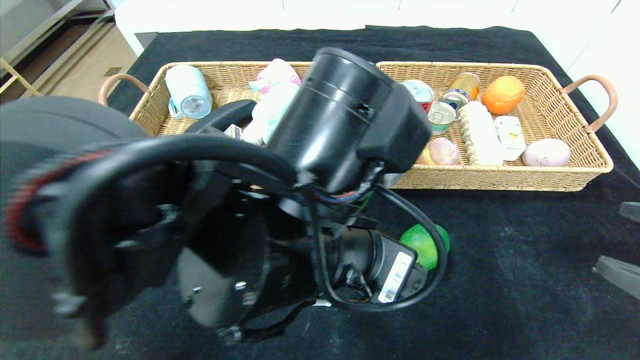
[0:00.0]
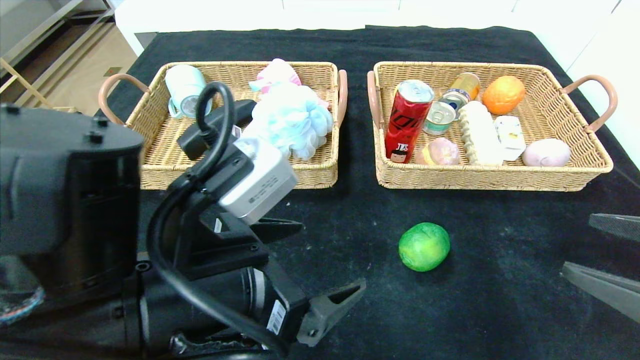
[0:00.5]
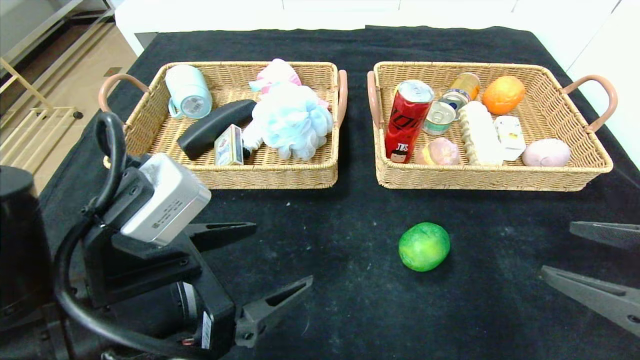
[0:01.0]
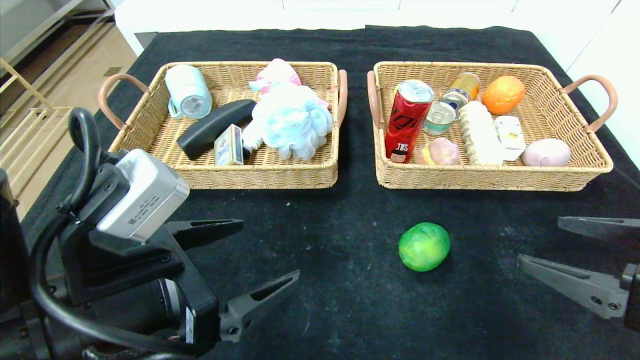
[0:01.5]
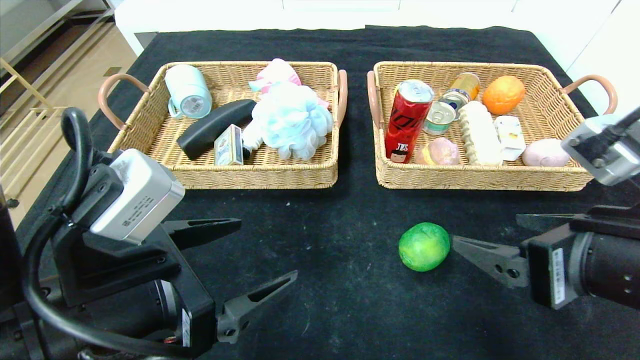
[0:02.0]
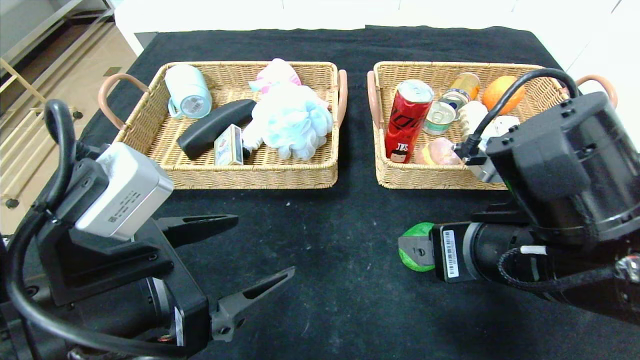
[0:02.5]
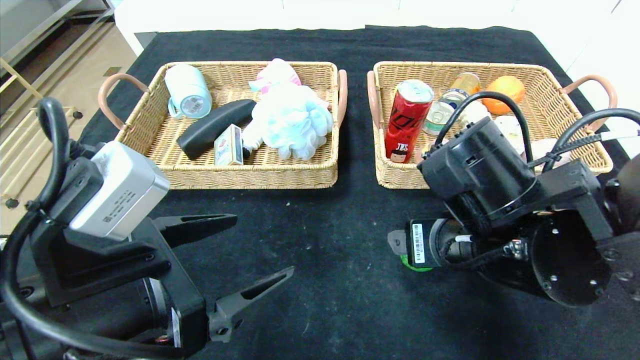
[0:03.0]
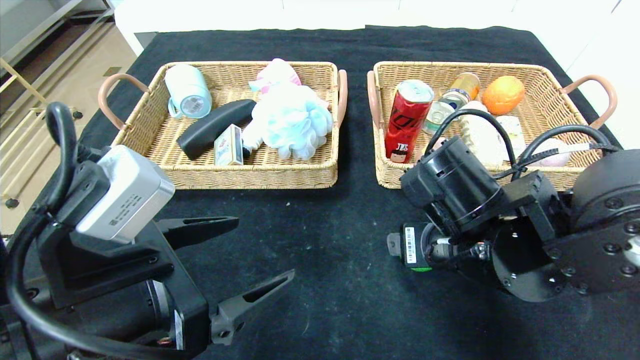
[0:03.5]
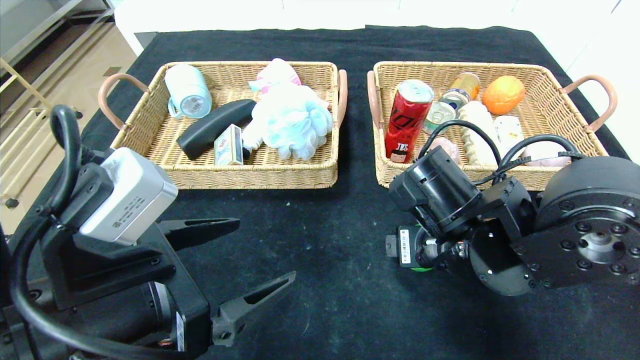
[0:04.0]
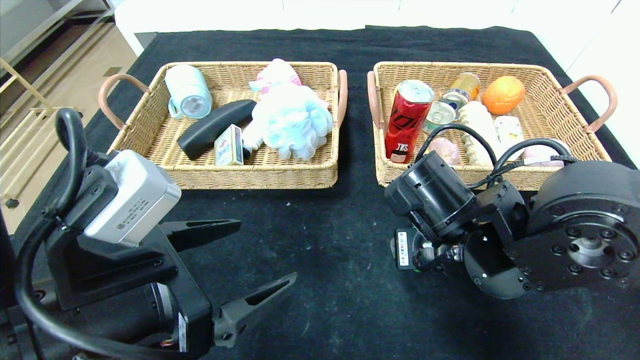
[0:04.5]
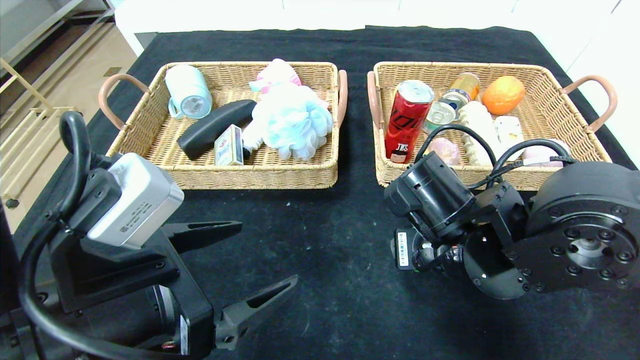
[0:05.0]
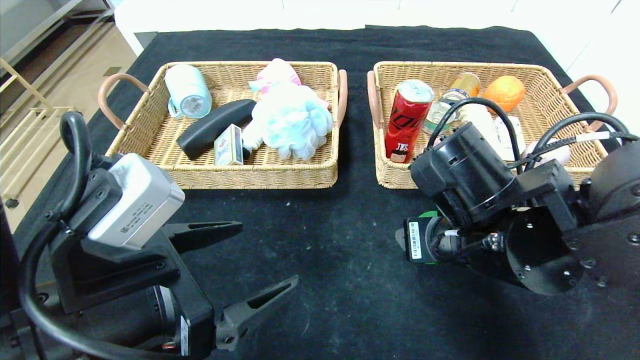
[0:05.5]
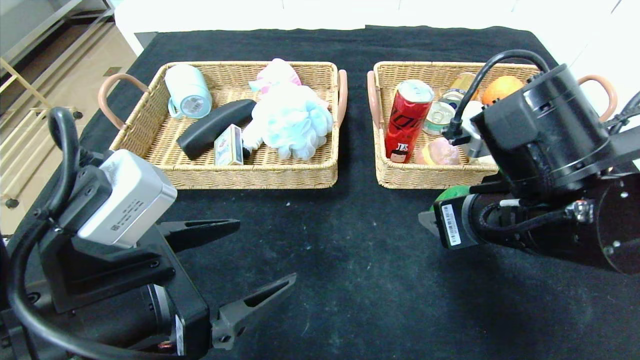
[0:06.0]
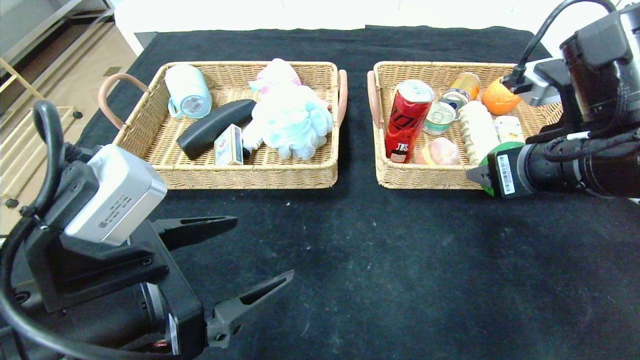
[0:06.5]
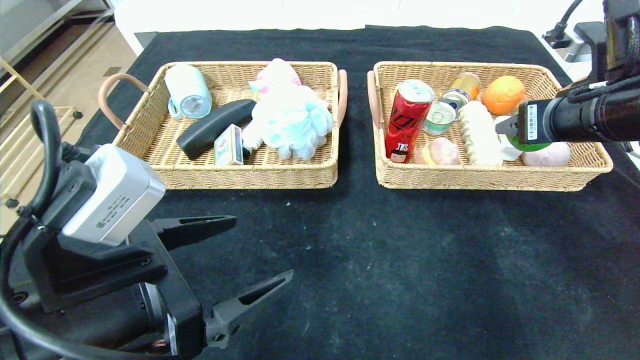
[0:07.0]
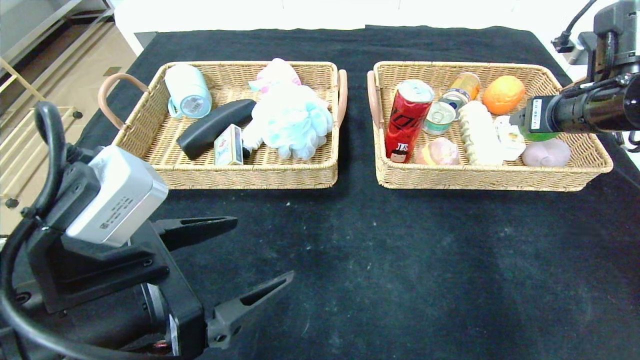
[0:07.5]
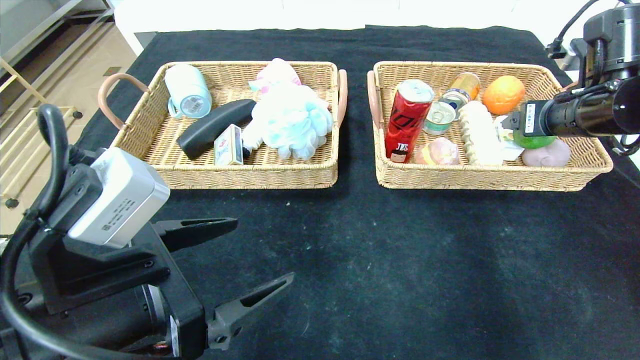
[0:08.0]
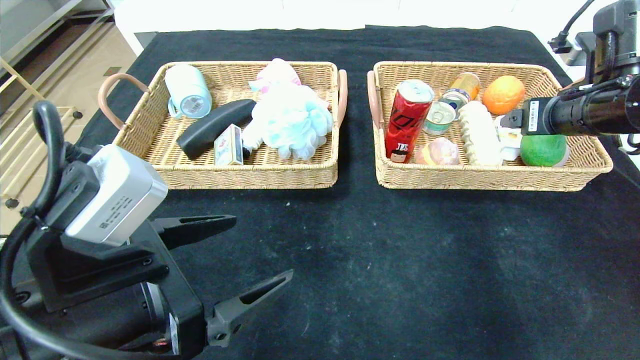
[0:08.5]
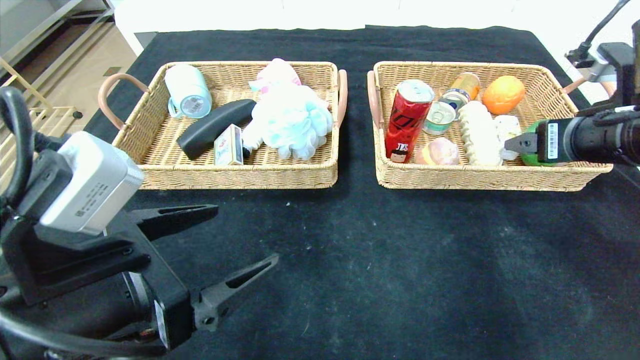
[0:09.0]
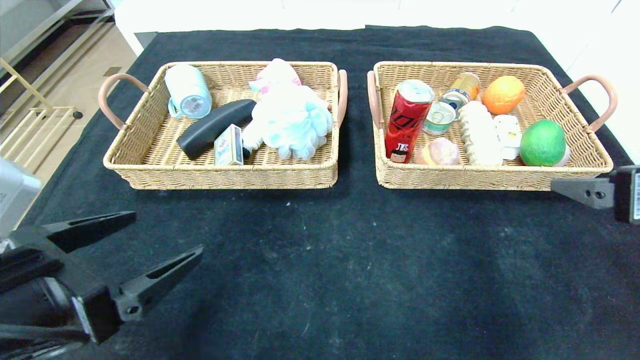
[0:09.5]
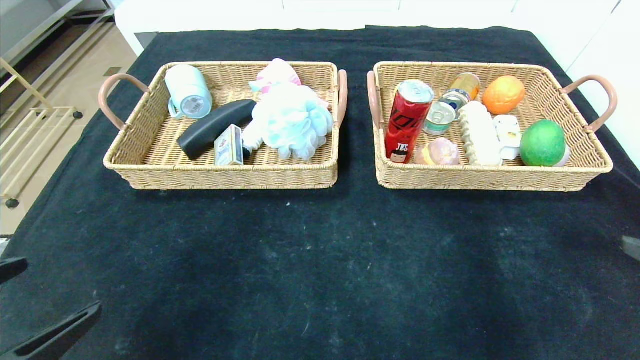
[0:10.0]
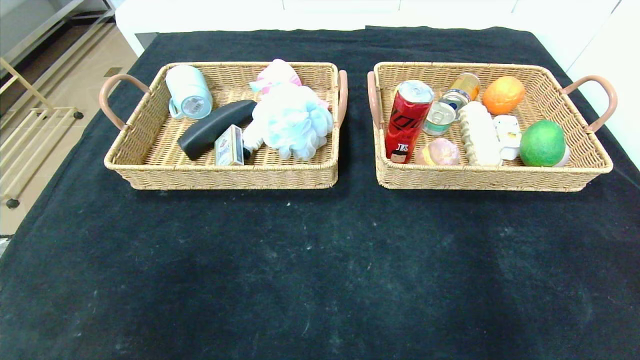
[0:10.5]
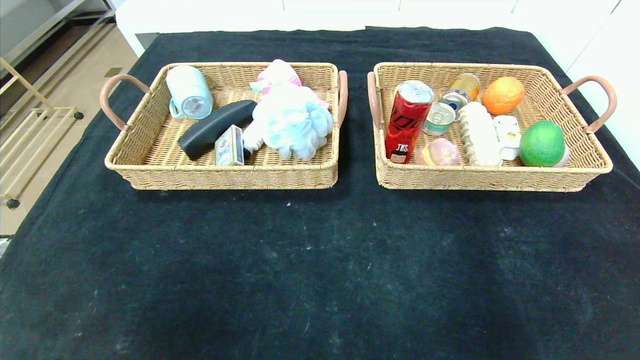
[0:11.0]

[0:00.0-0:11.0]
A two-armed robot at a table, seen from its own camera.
Step, 0:00.0 to 0:08.0: Grasp the green lemon and put it in the right basket.
0:00.0 to 0:02.0: The two grippers go about 15 cm to the left.
0:02.0 to 0:03.5: The right gripper heads to the left and forward, covering about 10 cm.
0:03.5 to 0:05.5: The grippers stay close to where they were, moving slightly.
0:05.5 to 0:07.5: The right gripper is displaced to the right, forward and upward by some 25 cm.
0:07.5 to 0:09.0: The right gripper is displaced backward by approximately 10 cm.
0:09.0 to 0:11.0: The right gripper heads backward, covering approximately 35 cm. The left gripper heads backward and to the left, covering some 25 cm.

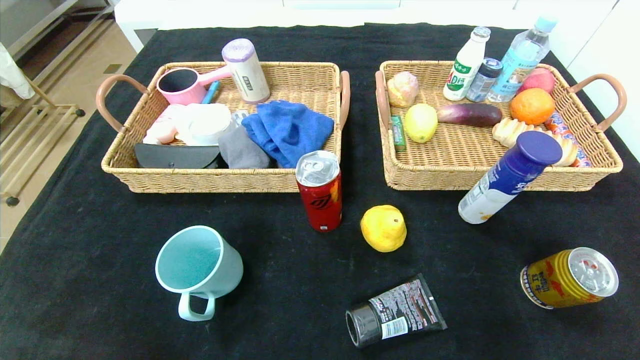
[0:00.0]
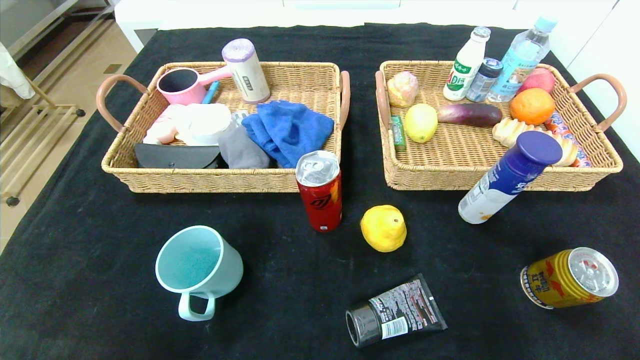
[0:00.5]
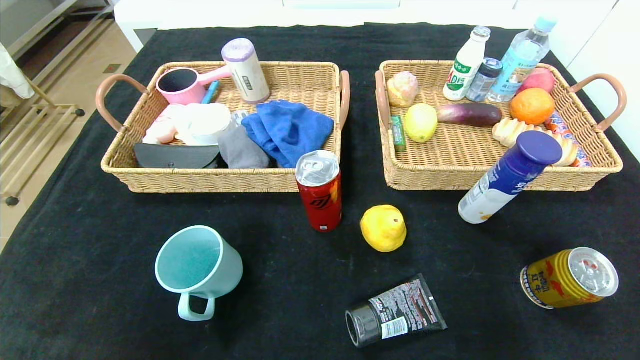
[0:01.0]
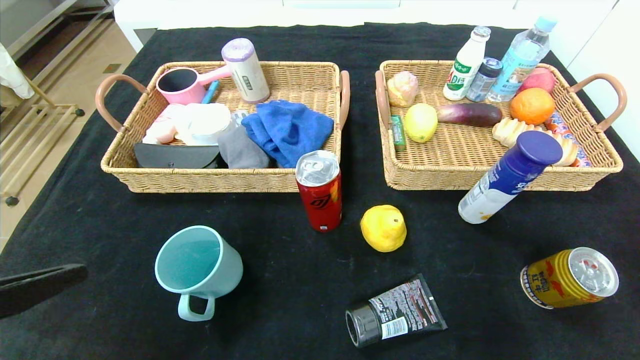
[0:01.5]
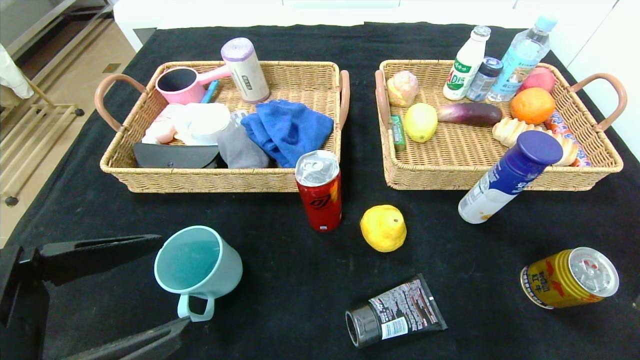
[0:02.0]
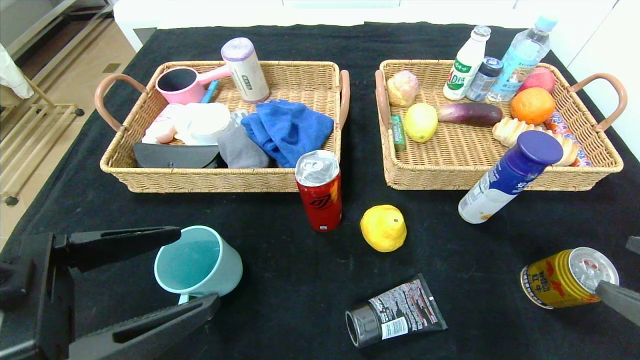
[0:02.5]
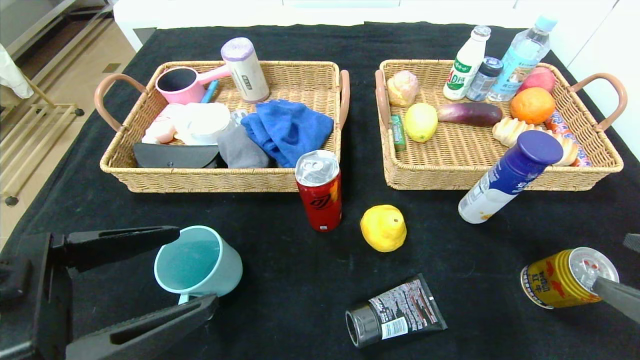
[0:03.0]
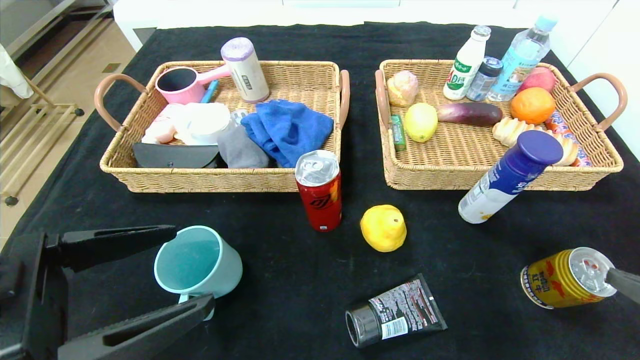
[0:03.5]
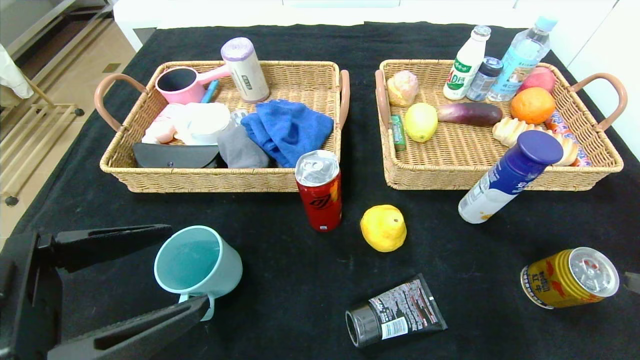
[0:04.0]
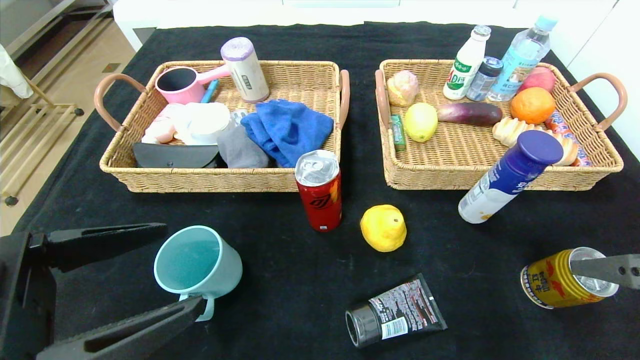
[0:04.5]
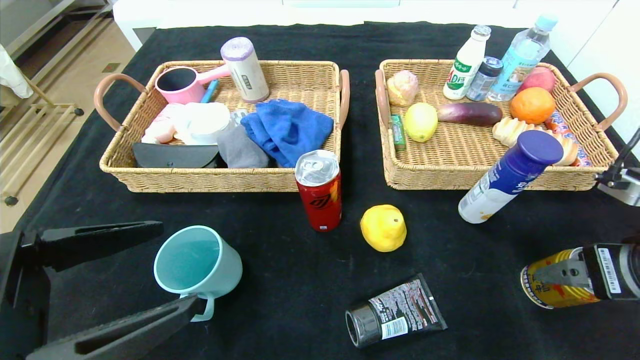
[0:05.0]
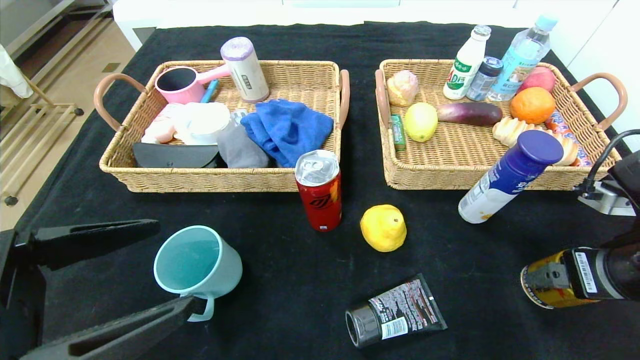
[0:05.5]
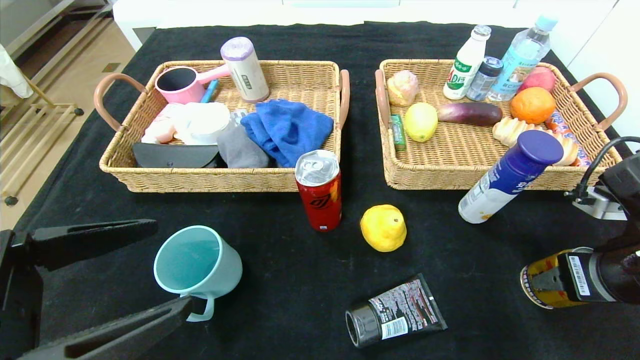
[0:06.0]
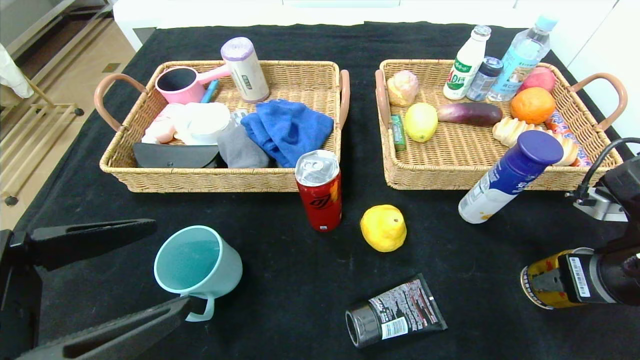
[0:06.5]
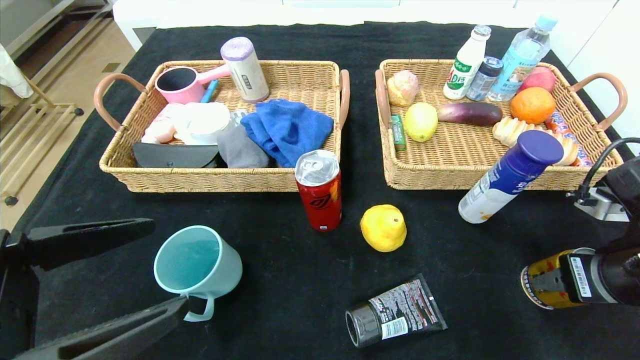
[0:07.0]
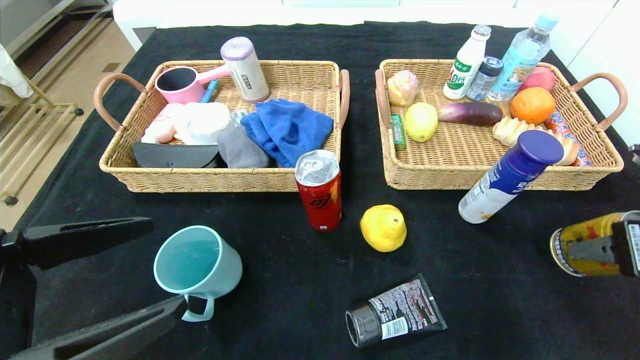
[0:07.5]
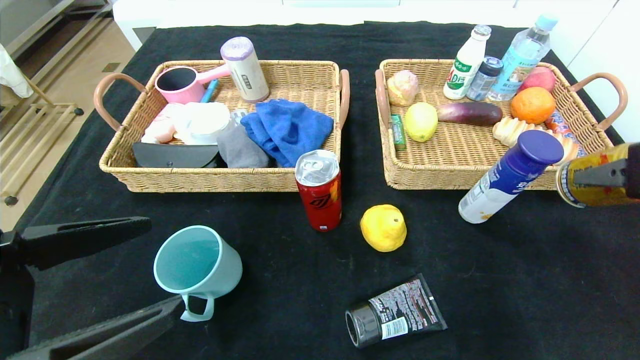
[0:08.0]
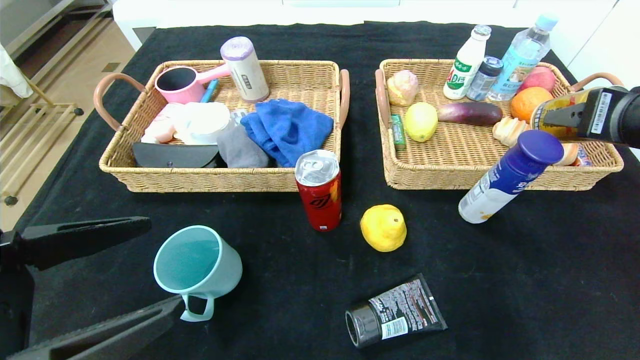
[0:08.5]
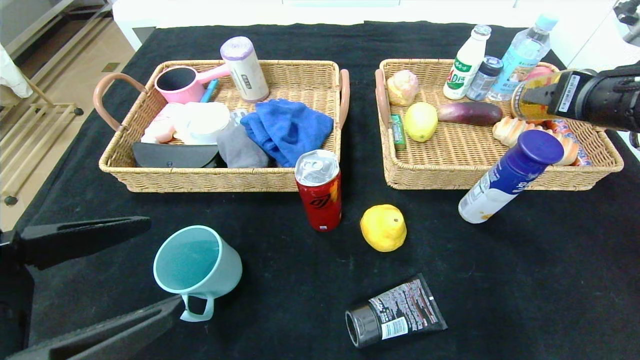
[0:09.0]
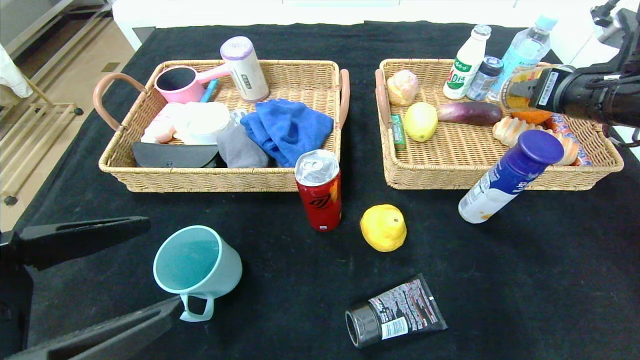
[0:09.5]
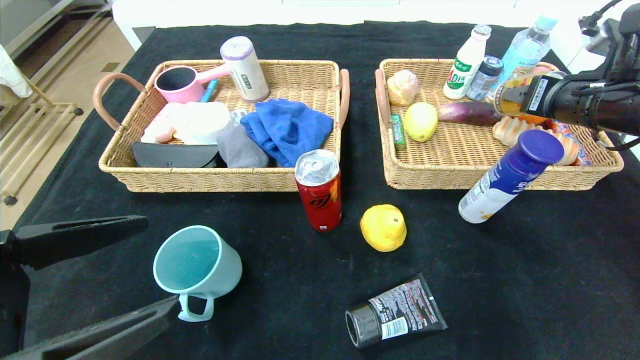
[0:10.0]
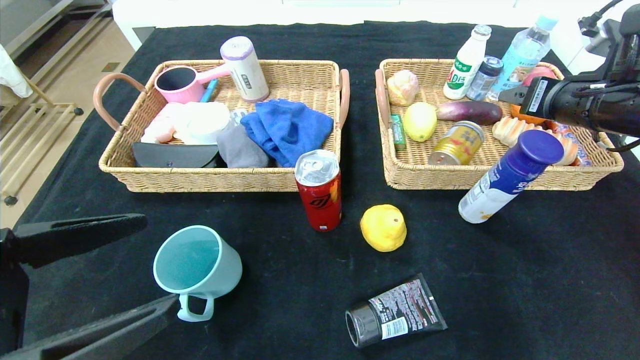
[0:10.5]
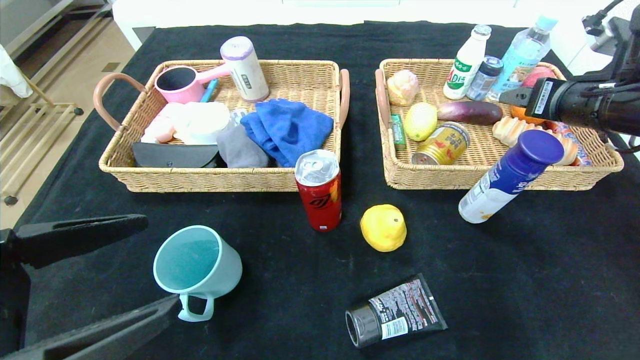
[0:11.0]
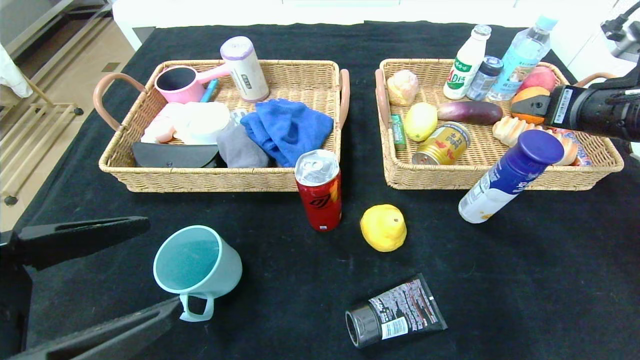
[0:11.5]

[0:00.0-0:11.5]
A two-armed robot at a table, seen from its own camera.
Step, 0:00.0 to 0:11.0: Grasp the Red Bull and put it in the right basket.
0:00.0 to 0:02.0: The two grippers go some 20 cm upward and forward.
0:04.0 to 0:06.0: The right gripper moves forward and downward, about 15 cm, and closes.
0:06.0 to 0:07.5: The right gripper heads upward, covering roughly 5 cm.
0:07.5 to 0:09.5: The right gripper shifts about 15 cm forward.
0:09.5 to 0:11.5: The right gripper opens its fingers.
